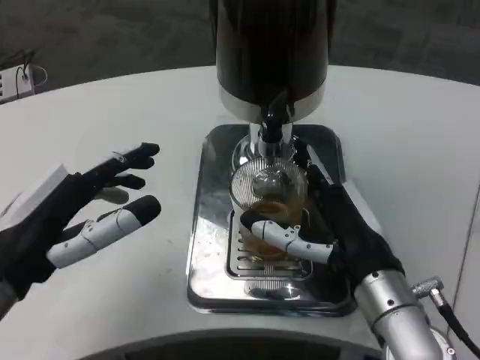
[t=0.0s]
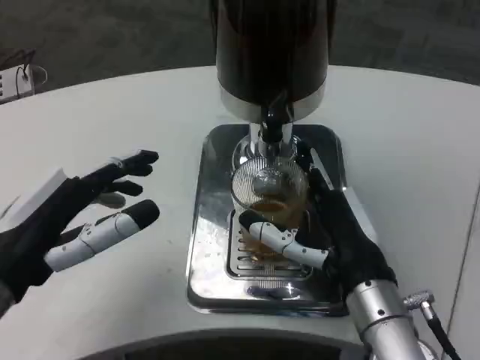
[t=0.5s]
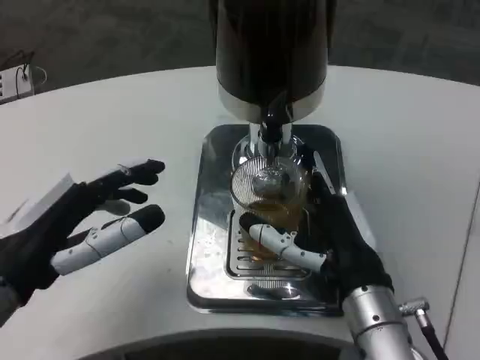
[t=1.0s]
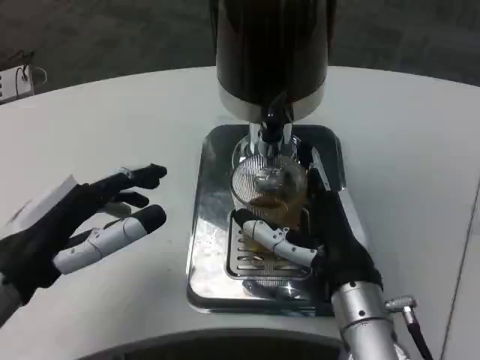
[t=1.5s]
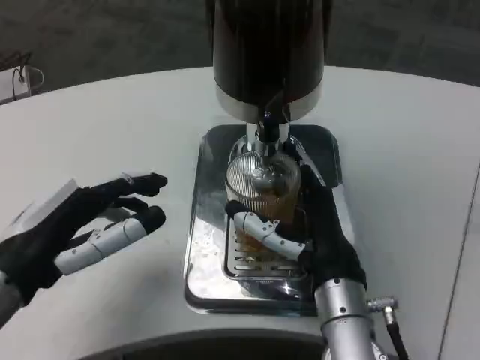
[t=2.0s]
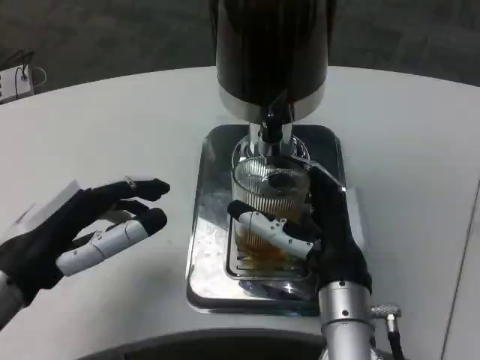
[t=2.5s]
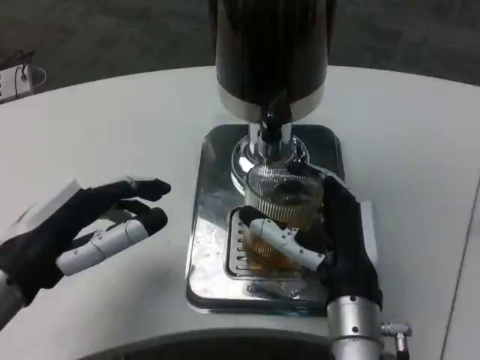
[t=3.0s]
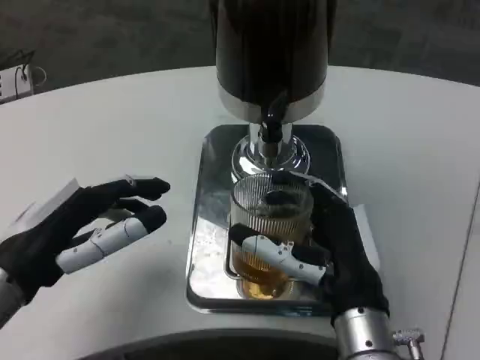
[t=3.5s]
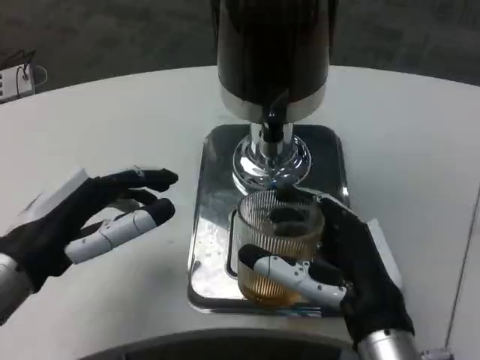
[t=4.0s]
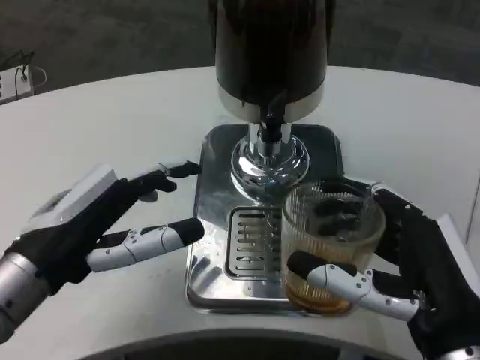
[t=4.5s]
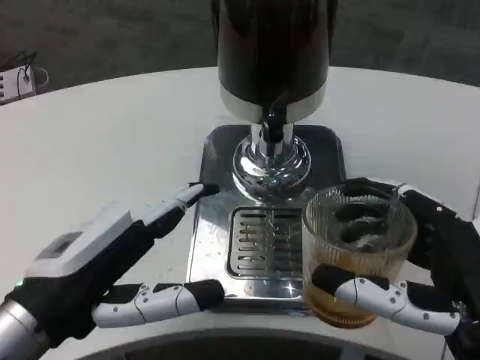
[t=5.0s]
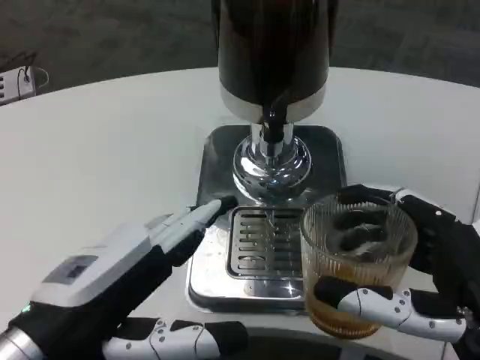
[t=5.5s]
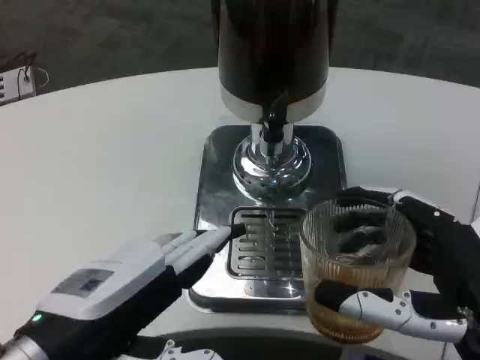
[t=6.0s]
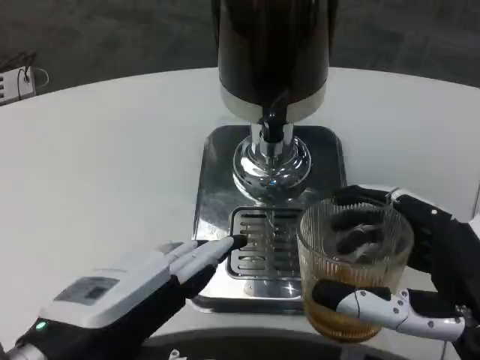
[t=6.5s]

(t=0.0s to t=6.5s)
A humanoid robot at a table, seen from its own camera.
Task of the whole recording: Grasp the cup under the faucet to collect the drink, then remove the cup.
t=0.0s - t=2.0s: The right hand ends up roughly 5 cm from where it was.
t=2.0s - t=4.5s: The right hand shifts some 15 cm backward and to the right.
t=4.5s - t=6.5s: The left hand goes roughly 10 cm backward.

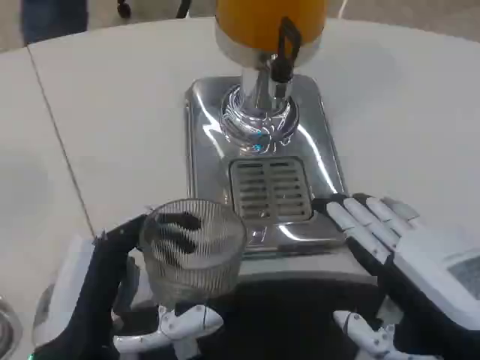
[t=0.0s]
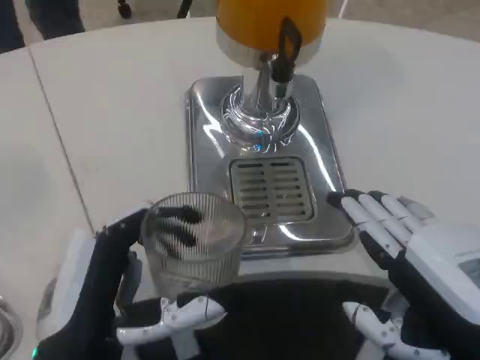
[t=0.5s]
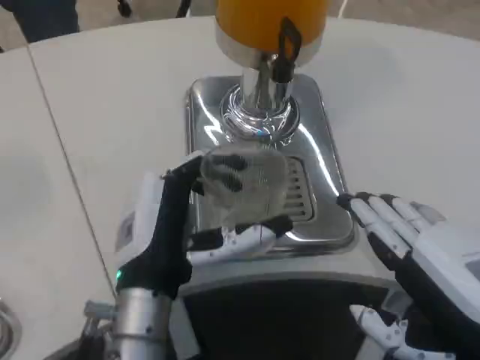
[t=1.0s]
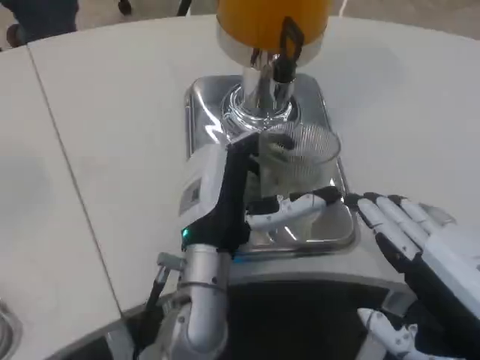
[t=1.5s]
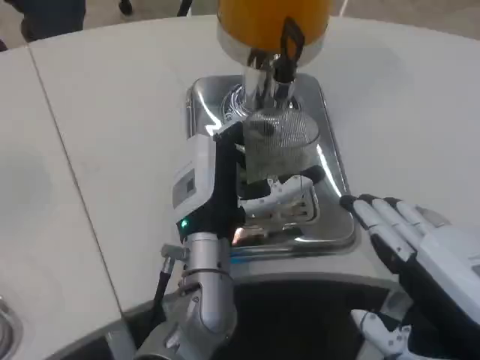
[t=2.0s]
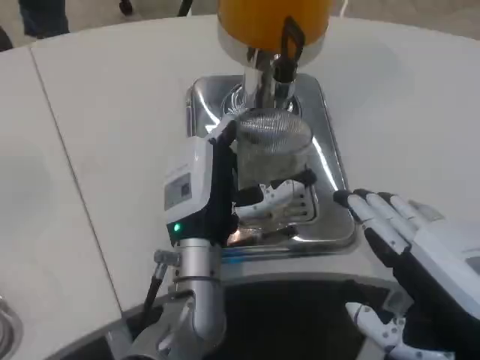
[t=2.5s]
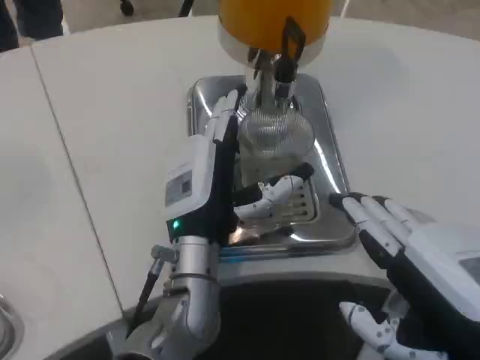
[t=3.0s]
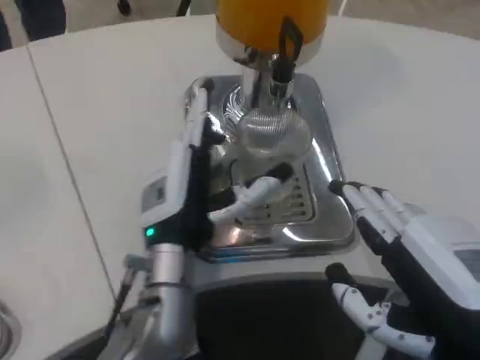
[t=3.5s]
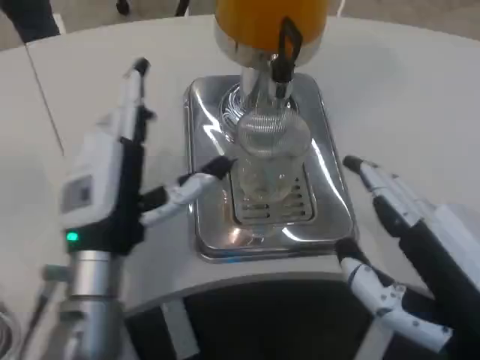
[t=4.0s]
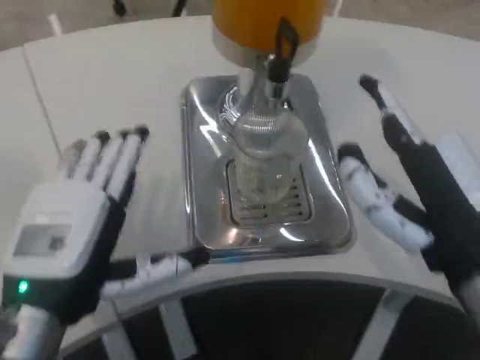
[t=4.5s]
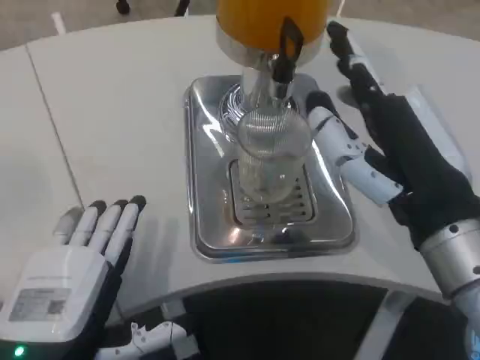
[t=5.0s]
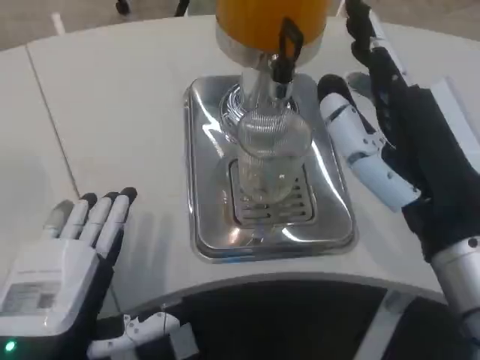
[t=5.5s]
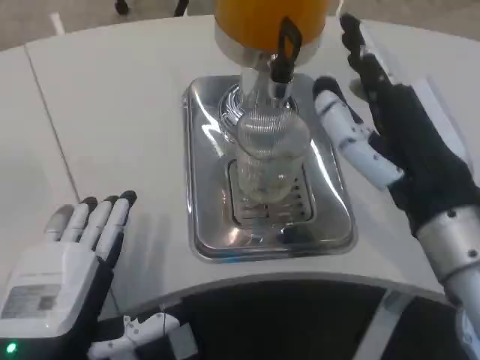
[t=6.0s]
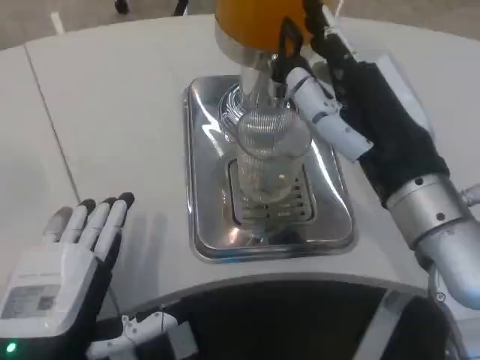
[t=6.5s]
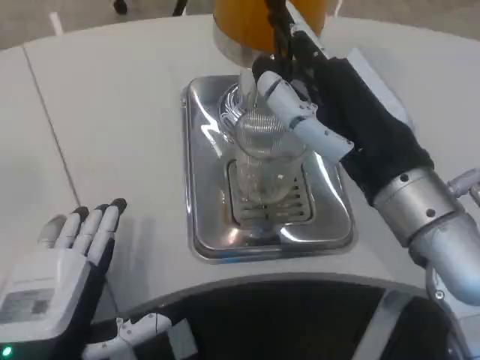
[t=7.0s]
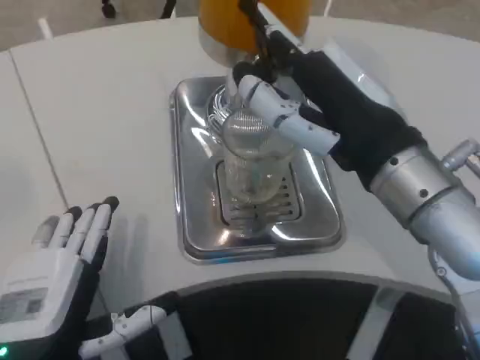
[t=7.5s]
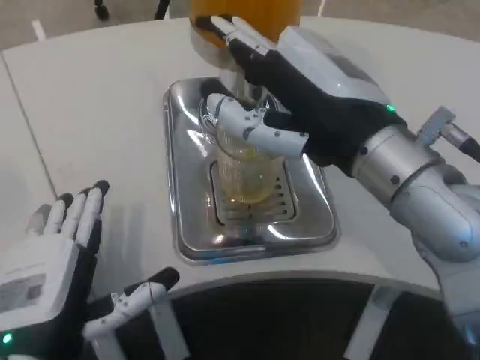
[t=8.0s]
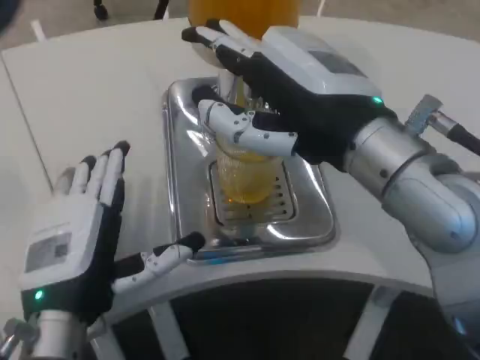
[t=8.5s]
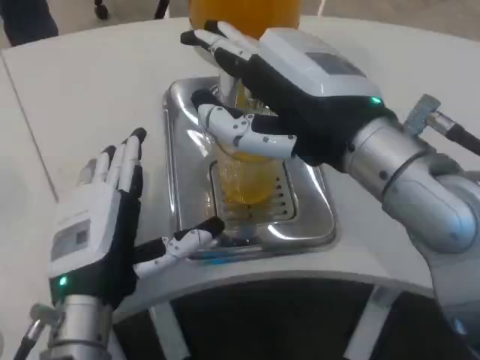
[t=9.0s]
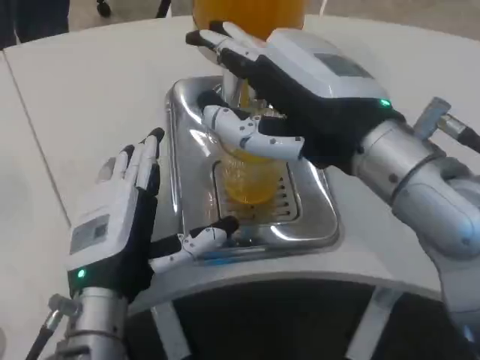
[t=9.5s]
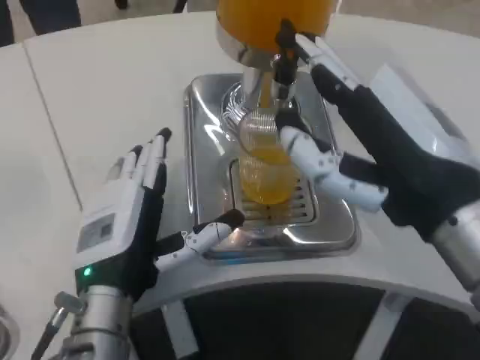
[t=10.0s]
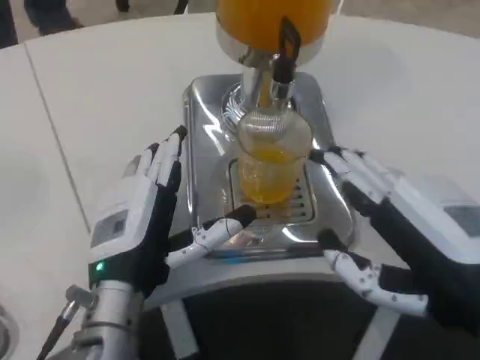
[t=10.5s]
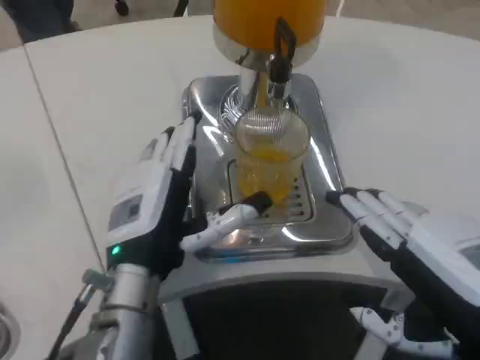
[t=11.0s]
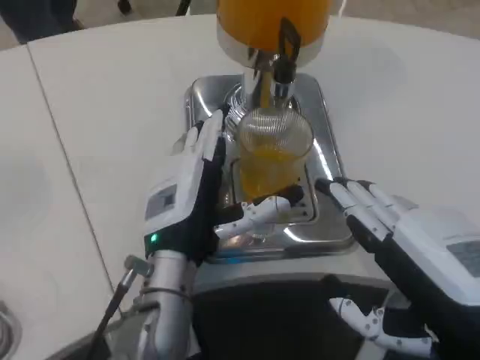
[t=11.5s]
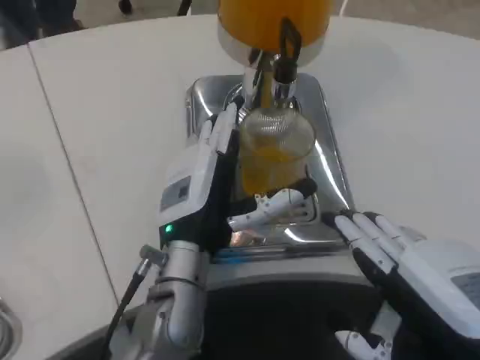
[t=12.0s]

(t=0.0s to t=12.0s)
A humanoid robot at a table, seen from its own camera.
Task of the whole recording: Grasp the cup under the faucet to collect the drink, then remove the cup.
t=0.0s - t=2.0s: The left hand travels forward and to the right by some 20 cm.
t=2.0s - t=4.0s: The left hand goes about 10 cm to the left.
t=4.0s - t=6.0s: The left hand is displaced backward by some 10 cm, while the right hand travels forward by roughly 10 cm.
t=6.0s - t=8.0s: The right hand shifts about 5 cm upward.
t=8.0s - t=10.0s: The right hand moves backward, about 5 cm; the left hand shifts roughly 10 cm forward and to the right.
t=10.0s - t=12.0s: The left hand moves to the right and forward, roughly 10 cm; the right hand moves downward and backward, roughly 10 cm.

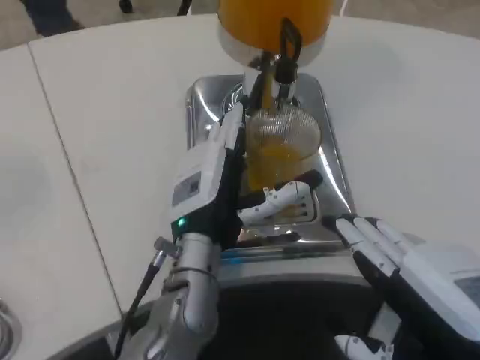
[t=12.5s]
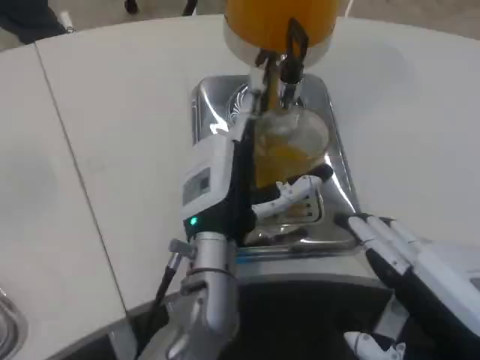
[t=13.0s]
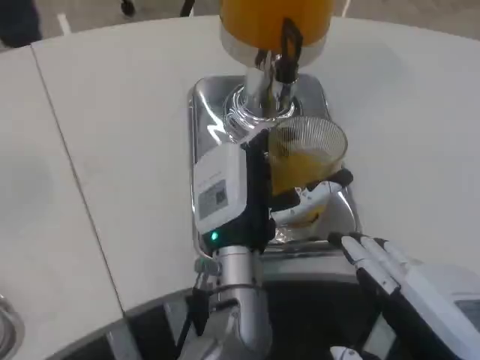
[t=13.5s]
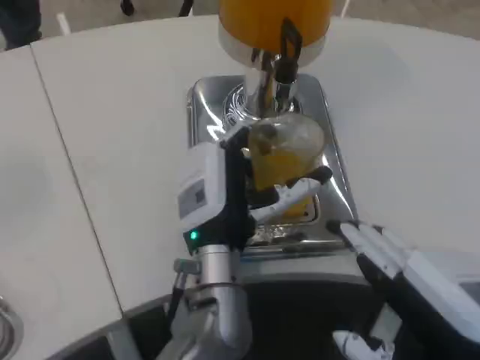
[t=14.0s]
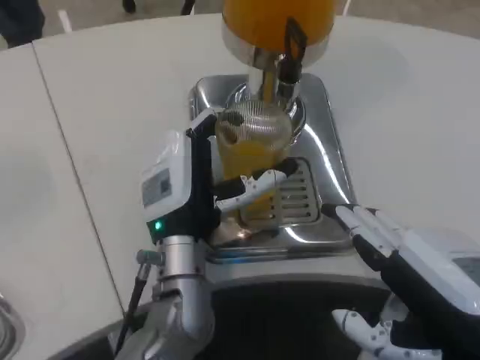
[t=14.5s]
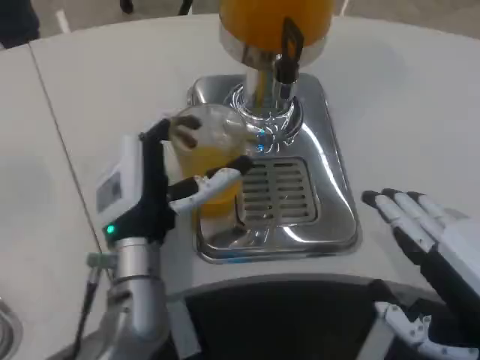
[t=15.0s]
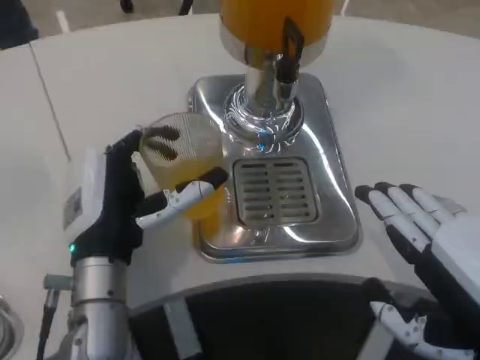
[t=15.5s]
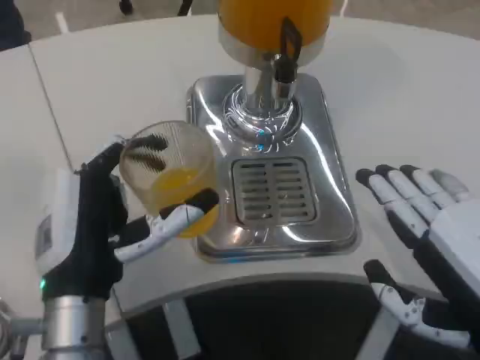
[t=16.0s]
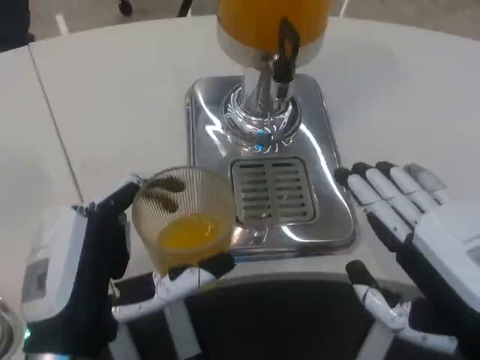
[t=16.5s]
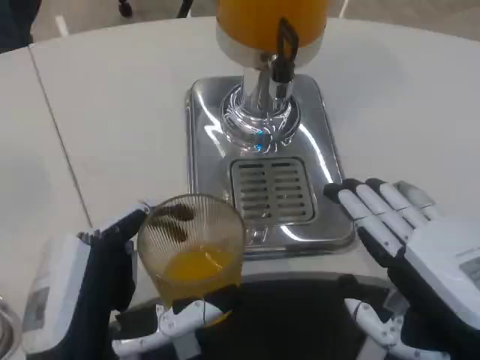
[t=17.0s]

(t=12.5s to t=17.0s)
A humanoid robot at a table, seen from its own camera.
Task of the whole recording: Grasp the cup under the faucet to collect the drink, then remove the cup.
t=14.5s - t=17.0s: The left hand heads backward and to the left, covering some 20 cm.

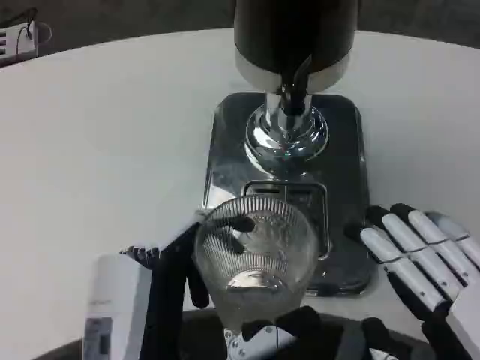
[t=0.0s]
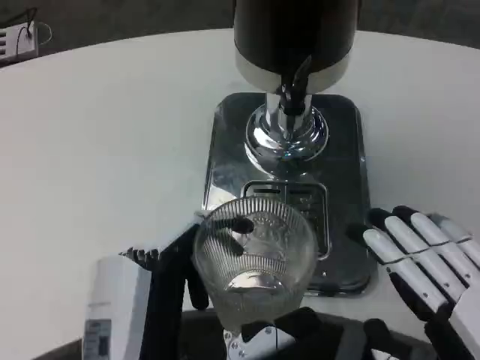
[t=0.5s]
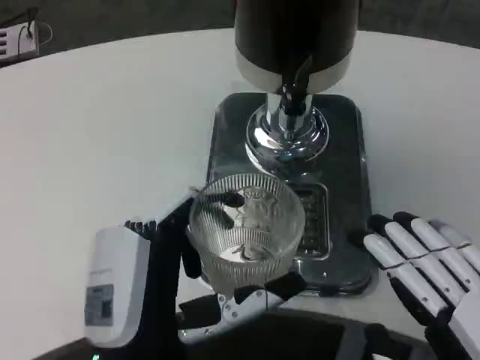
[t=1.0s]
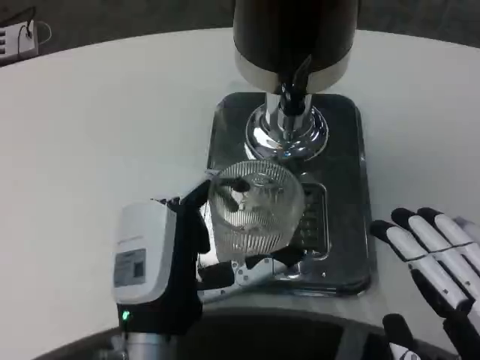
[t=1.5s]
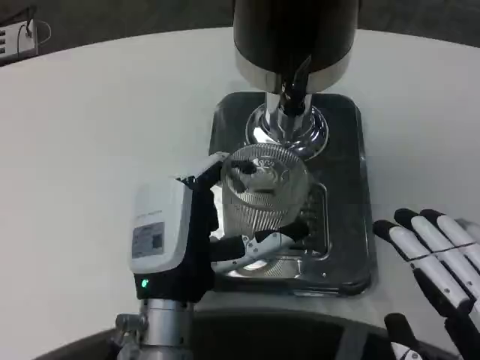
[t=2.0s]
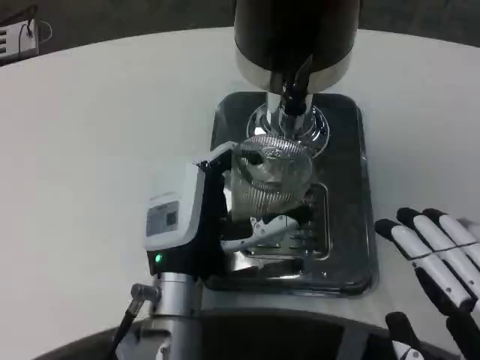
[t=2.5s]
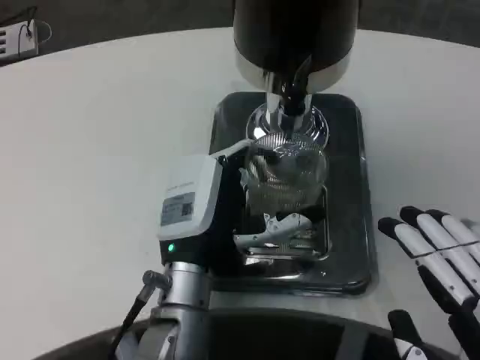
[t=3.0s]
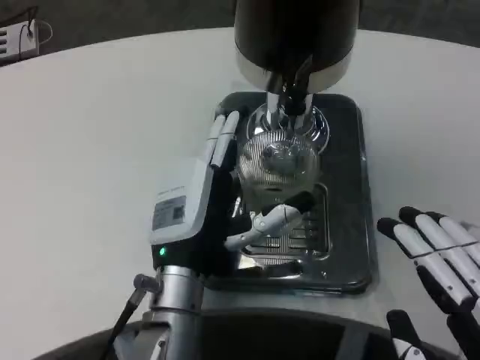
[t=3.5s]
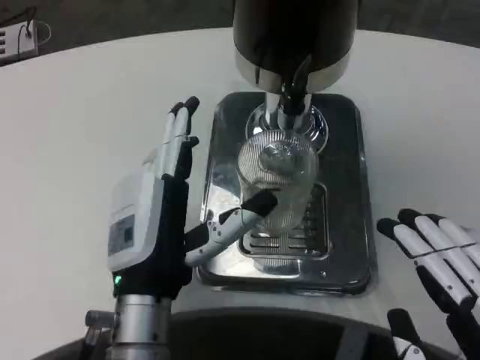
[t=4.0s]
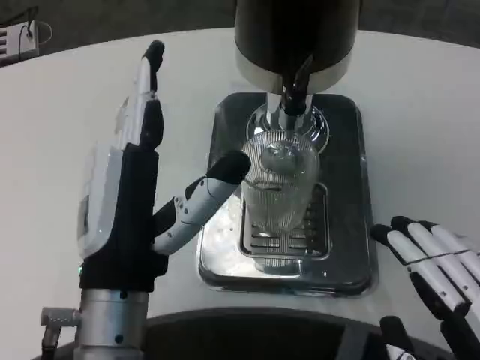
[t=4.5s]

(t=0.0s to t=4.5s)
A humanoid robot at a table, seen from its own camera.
Task of the whole recording: Grasp the cup under the faucet to collect the drink, then remove the cup.
t=0.0s - t=2.0s: The left hand goes approximately 10 cm forward.
t=2.0s - t=4.5s: The left hand is displaced upward and backward by some 10 cm.
